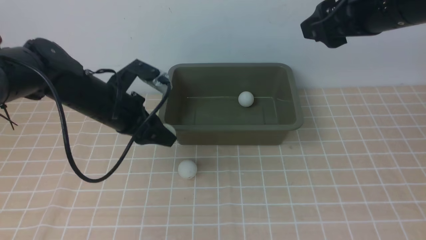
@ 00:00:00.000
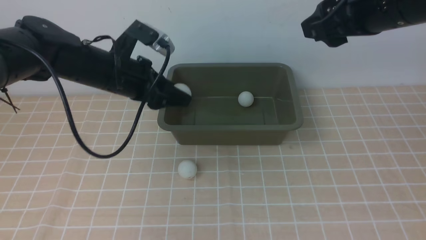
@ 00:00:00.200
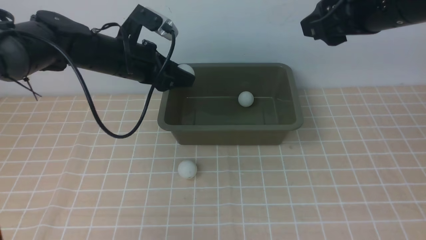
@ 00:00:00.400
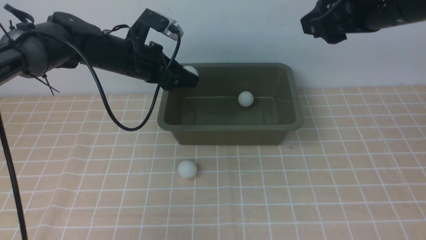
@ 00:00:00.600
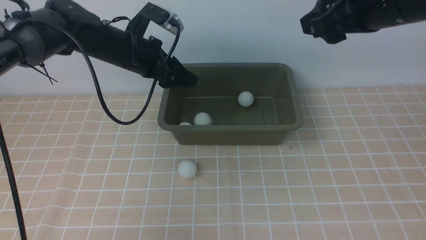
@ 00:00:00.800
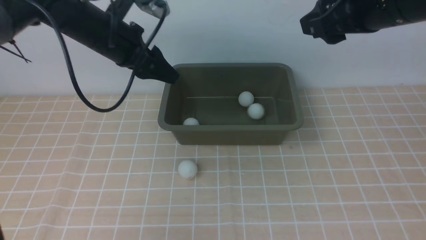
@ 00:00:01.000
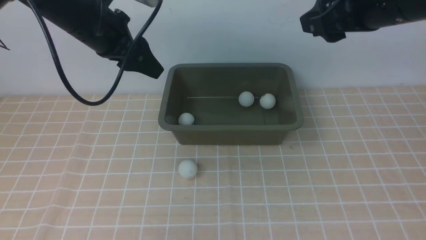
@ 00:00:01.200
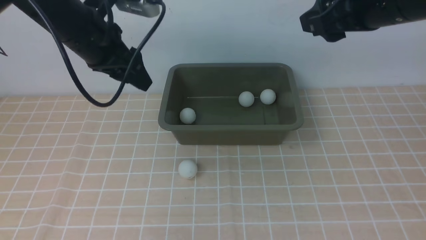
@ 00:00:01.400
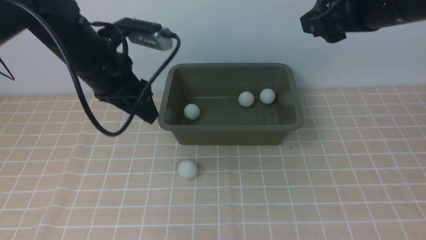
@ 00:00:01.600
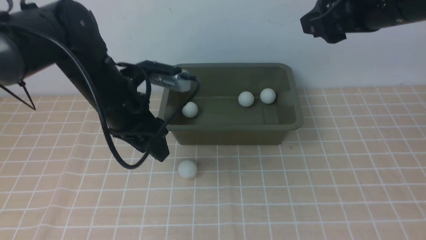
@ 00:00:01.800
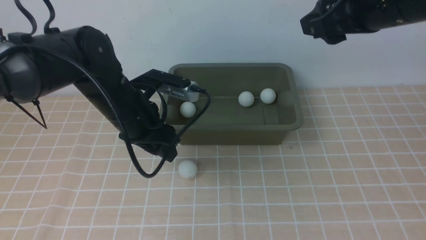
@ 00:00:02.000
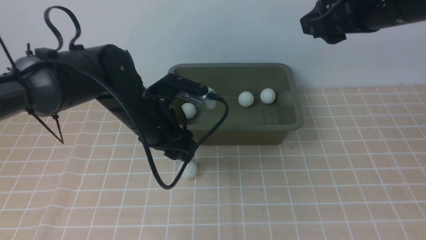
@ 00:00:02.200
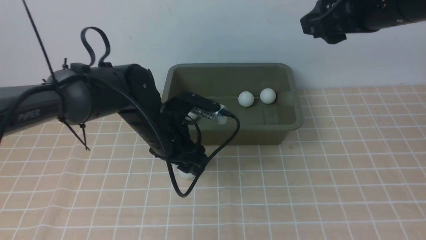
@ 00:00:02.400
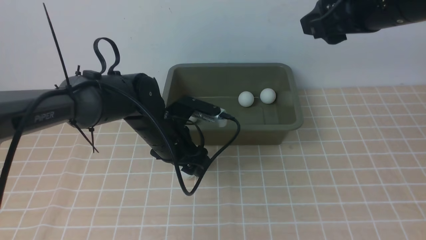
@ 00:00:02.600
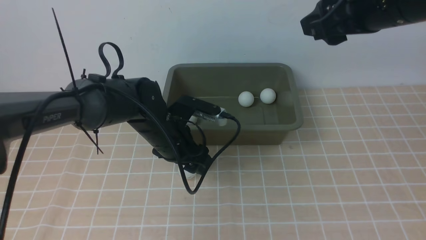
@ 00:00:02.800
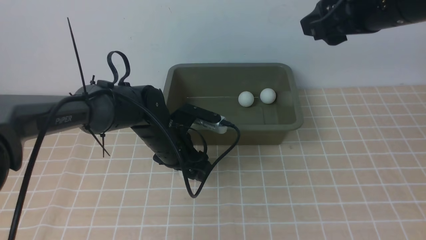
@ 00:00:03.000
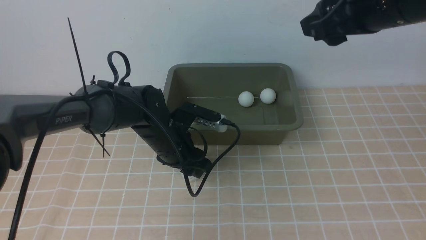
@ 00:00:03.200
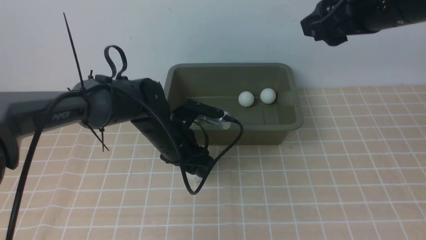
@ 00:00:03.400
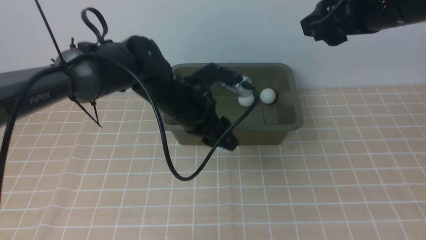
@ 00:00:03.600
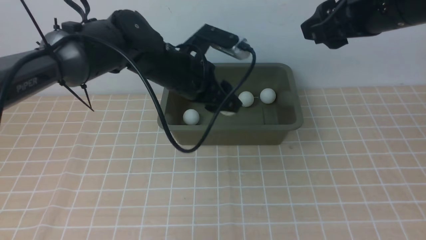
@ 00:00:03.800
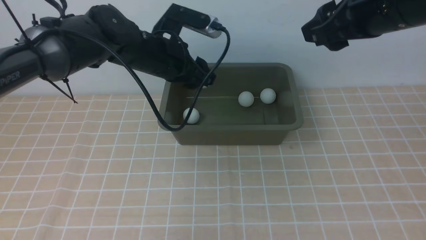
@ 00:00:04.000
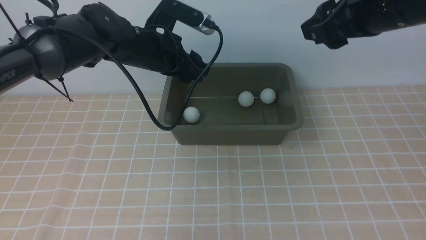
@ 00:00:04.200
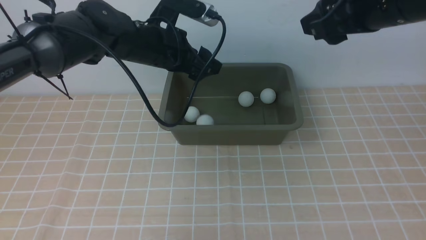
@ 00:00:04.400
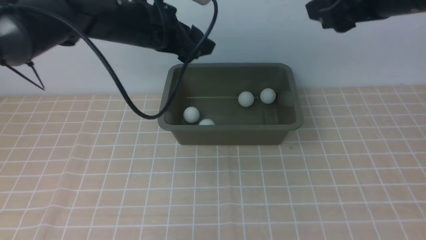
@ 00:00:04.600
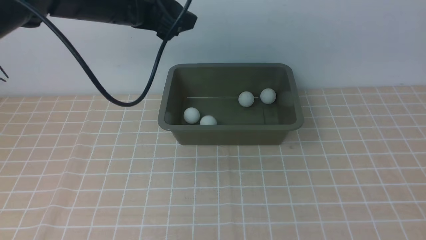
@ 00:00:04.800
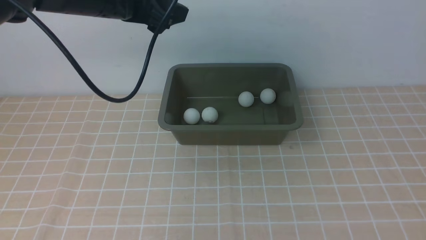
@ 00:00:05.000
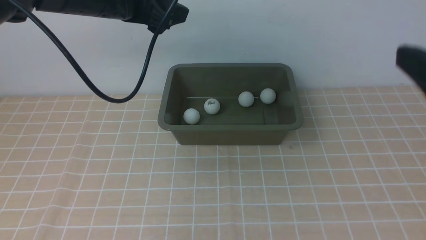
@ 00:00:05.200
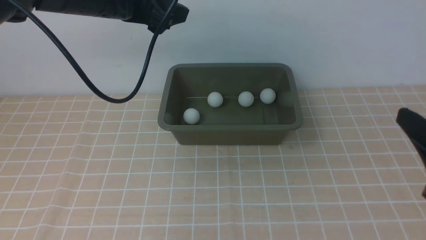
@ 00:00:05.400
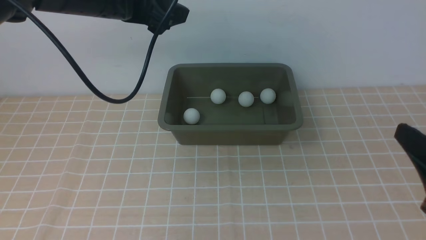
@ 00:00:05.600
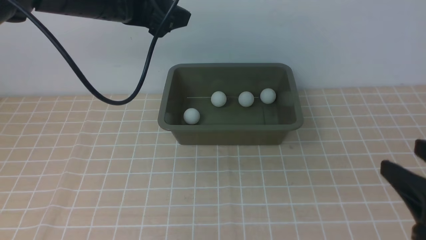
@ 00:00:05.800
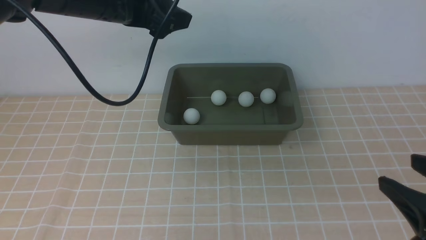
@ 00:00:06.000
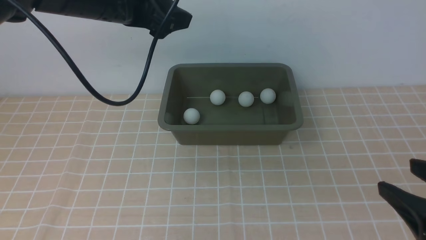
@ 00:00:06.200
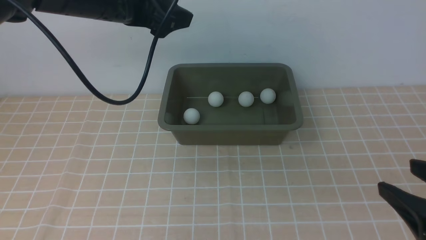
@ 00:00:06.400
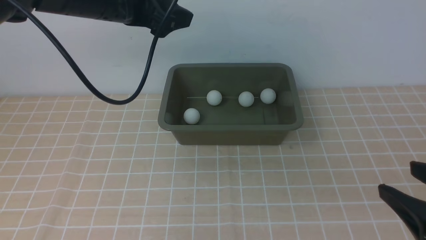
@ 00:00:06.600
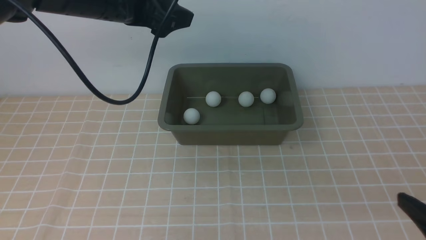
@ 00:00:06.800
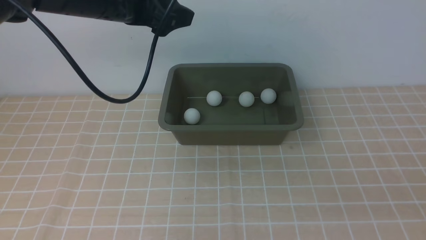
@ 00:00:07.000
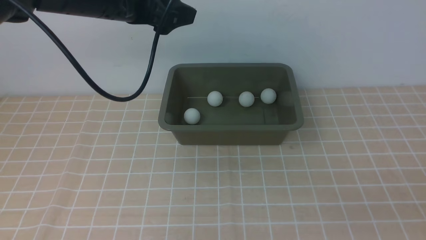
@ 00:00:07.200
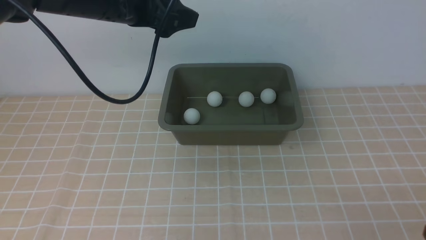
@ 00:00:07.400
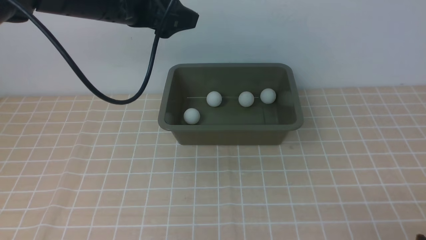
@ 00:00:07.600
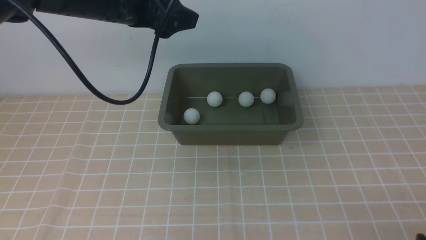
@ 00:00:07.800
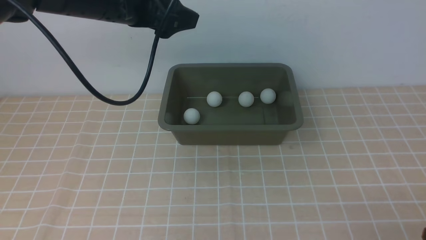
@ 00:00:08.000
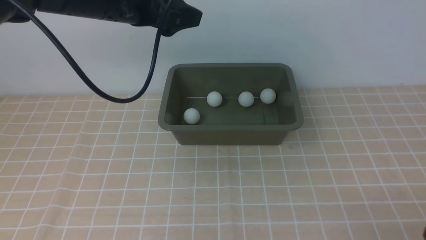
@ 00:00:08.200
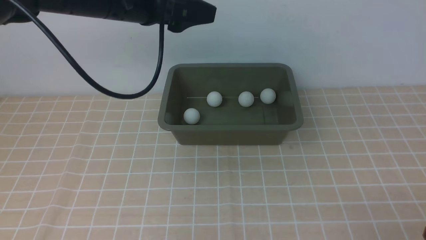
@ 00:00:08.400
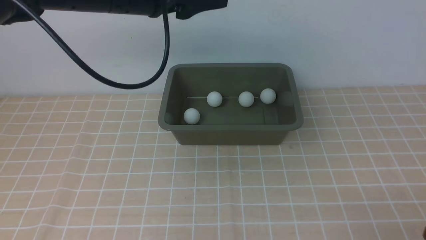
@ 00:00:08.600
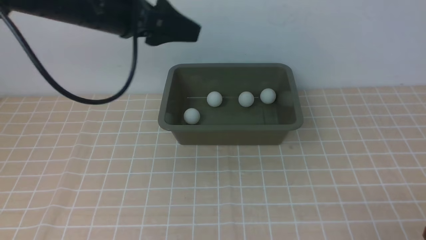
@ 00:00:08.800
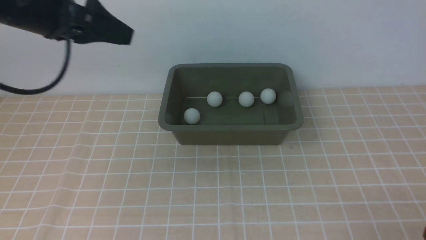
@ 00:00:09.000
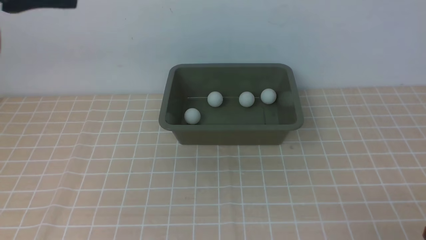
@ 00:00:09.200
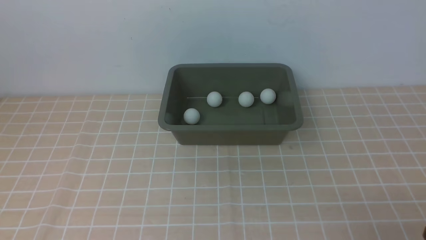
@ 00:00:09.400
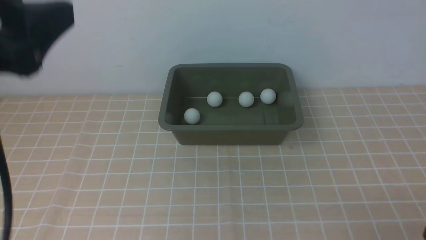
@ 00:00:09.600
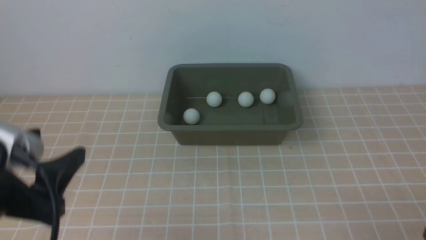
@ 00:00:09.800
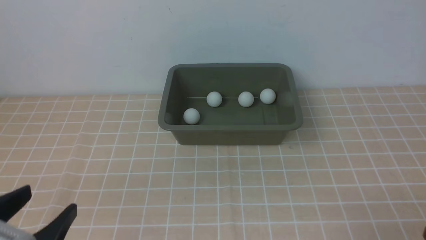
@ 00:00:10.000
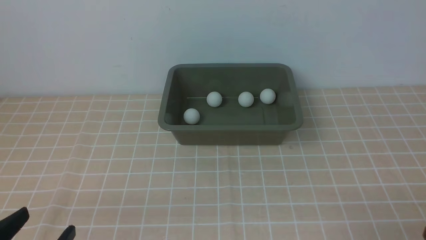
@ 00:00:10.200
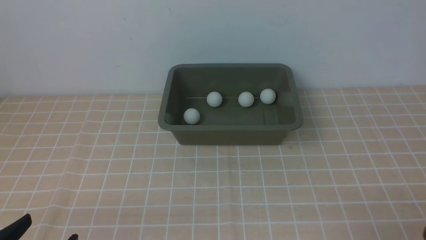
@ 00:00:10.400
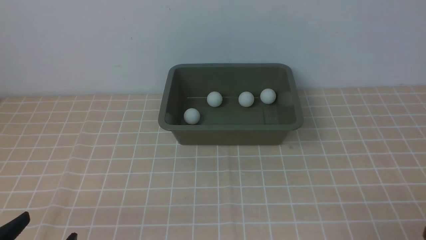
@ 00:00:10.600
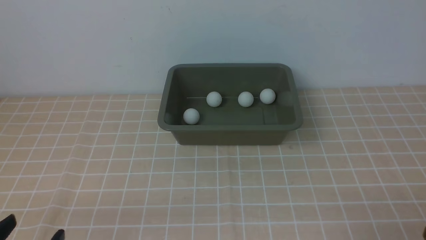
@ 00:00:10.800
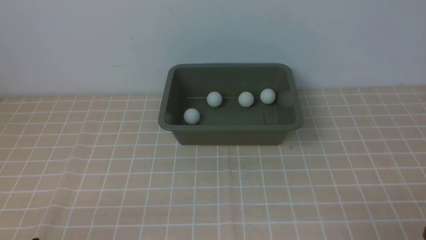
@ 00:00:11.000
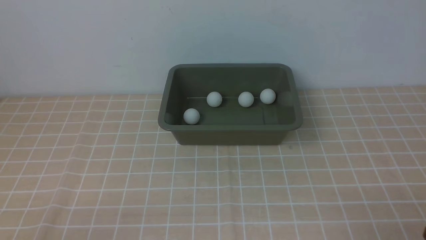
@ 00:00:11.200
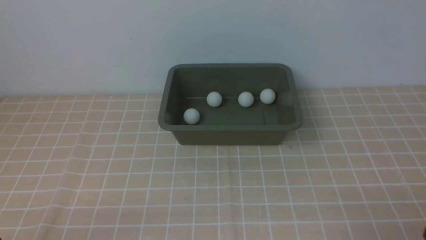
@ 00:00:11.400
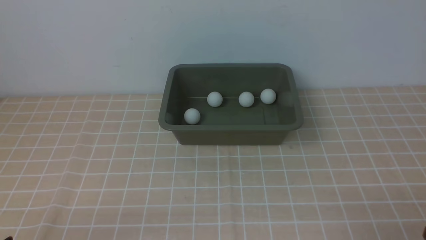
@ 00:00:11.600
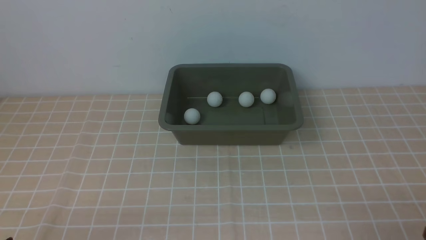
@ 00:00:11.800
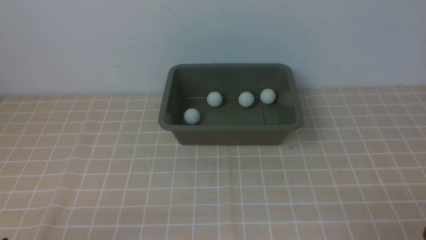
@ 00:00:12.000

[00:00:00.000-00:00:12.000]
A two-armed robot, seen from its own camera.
Step, 00:00:00.000 to 00:00:01.200: use the left arm to put the table tennis ball into the box.
Step, 00:00:01.400 to 00:00:03.600: use the left arm to clamp the table tennis ball closest to it.
Step, 00:00:03.800 to 00:00:04.800: use the left arm to put the table tennis ball into the box.
00:00:00.000 to 00:00:01.600: The left gripper travels upward by some 5 cm.
00:00:01.600 to 00:00:03.000: The left gripper shifts roughly 15 cm downward and to the right.
00:00:03.000 to 00:00:04.400: The left gripper heads upward, covering some 15 cm.
00:00:04.400 to 00:00:06.000: The right gripper travels backward and downward by roughly 25 cm; the left gripper heads upward, covering approximately 5 cm.
00:00:06.000 to 00:00:07.600: The right gripper travels downward and backward by about 10 cm.
00:00:07.600 to 00:00:09.000: The left gripper shifts about 10 cm to the left and backward.
00:00:09.000 to 00:00:10.400: The left gripper heads backward and downward, covering about 35 cm.

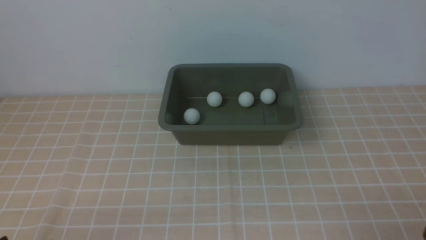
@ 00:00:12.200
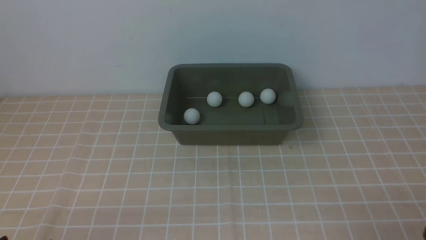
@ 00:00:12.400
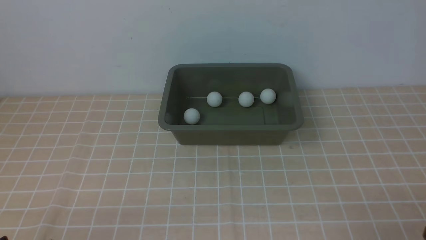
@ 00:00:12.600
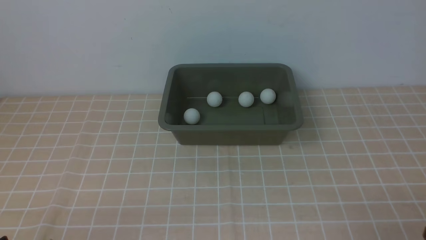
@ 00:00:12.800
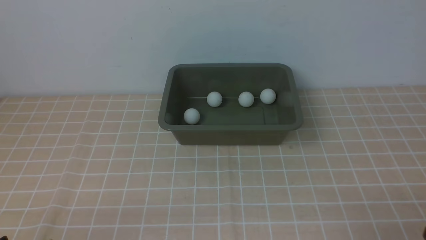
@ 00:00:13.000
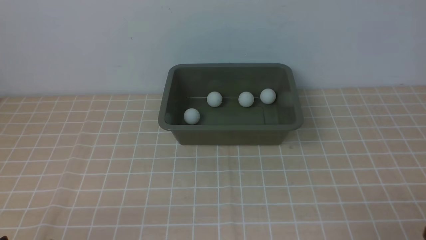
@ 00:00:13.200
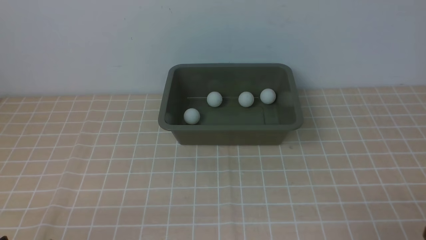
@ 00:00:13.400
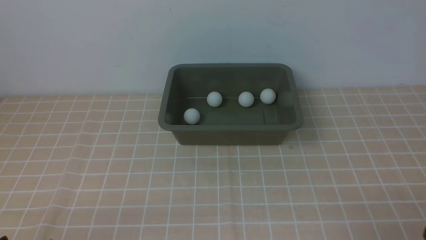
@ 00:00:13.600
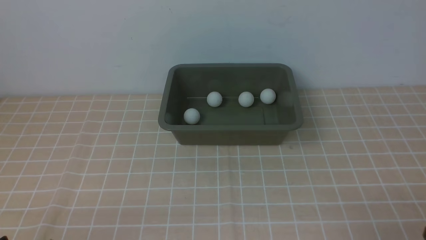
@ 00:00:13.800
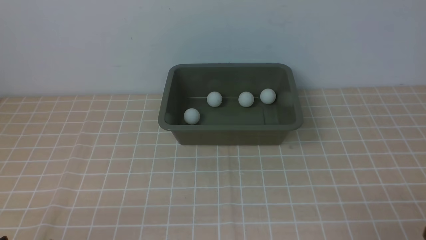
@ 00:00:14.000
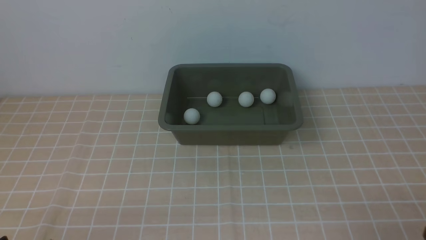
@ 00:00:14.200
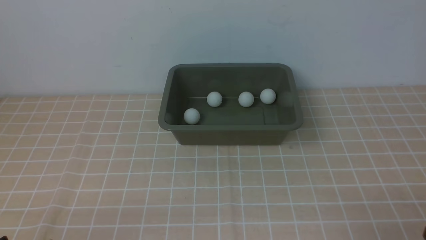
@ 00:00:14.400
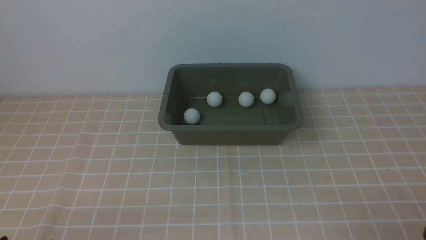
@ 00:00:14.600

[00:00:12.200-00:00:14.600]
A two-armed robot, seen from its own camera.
00:00:12.200 to 00:00:14.600: Both grippers stay about where they are.
